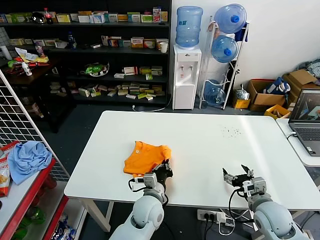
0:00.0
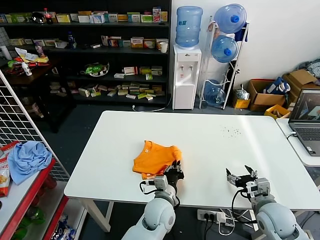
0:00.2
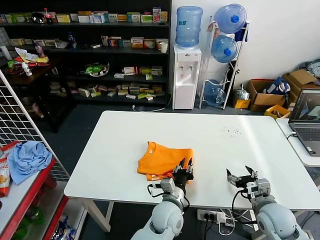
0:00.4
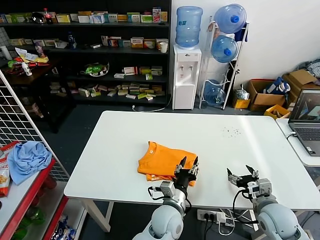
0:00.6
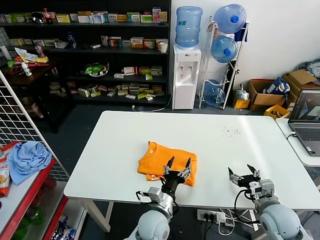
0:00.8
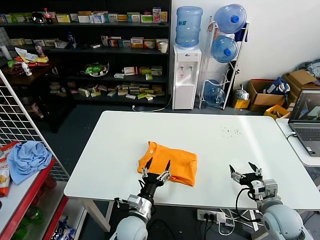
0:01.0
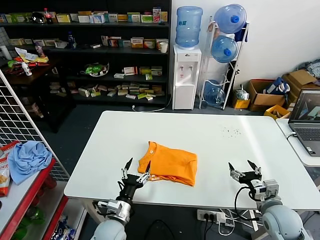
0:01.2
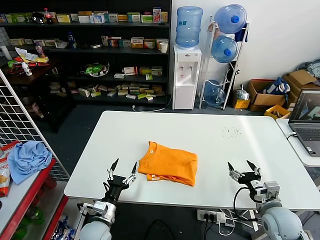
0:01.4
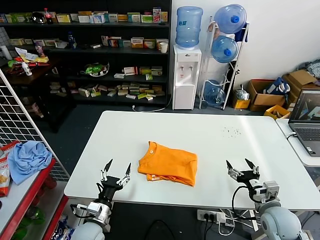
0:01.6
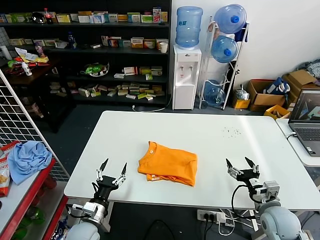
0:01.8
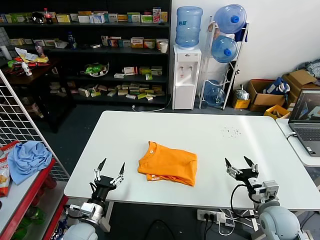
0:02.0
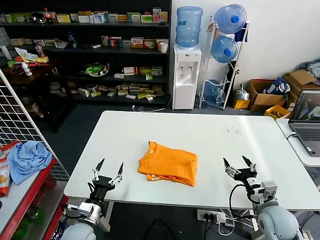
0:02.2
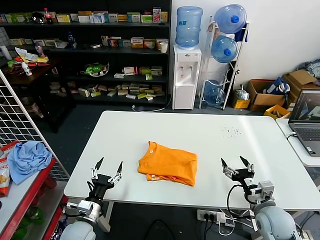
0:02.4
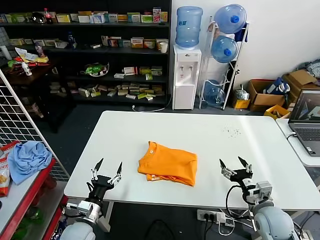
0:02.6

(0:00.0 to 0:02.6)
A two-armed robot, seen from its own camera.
Task of the whole recording: fold and organize the clothes.
0:00.0 - 0:01.2: The left gripper heads to the left, downward and backward, covering roughly 10 cm, and opens its fingers.
0:01.2 - 0:02.6: The left gripper moves to the left, some 10 cm.

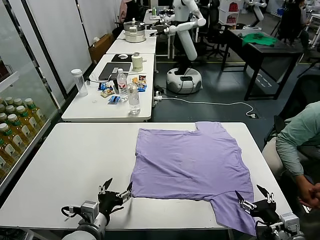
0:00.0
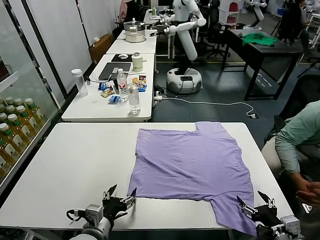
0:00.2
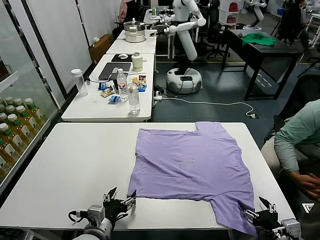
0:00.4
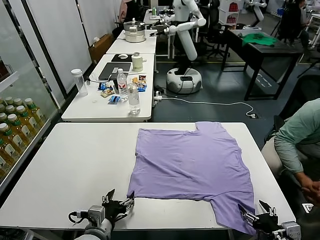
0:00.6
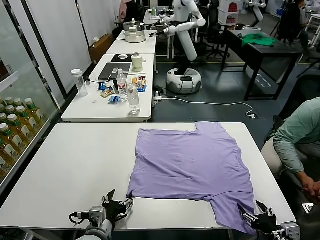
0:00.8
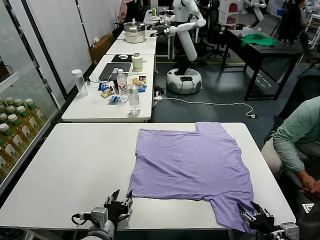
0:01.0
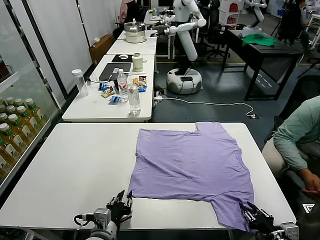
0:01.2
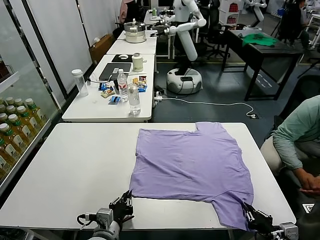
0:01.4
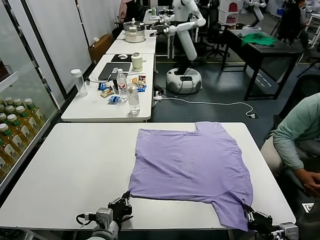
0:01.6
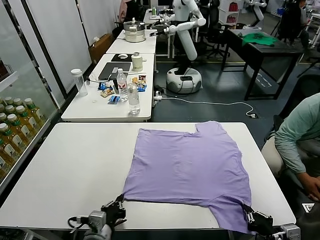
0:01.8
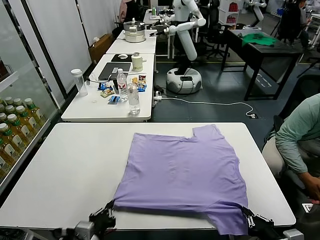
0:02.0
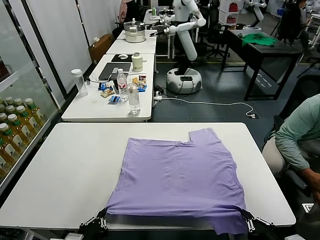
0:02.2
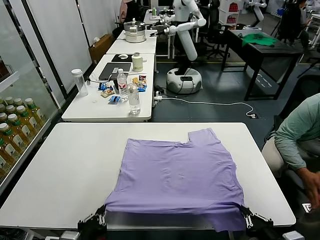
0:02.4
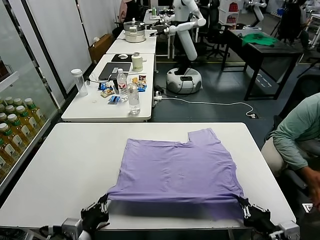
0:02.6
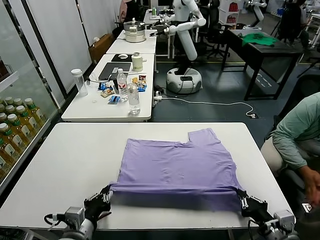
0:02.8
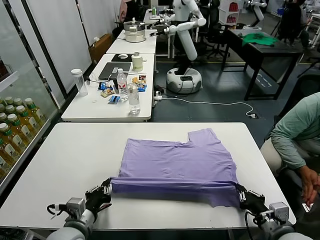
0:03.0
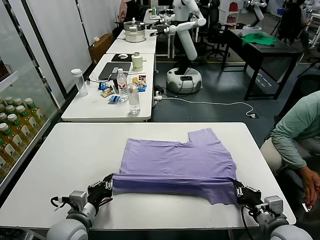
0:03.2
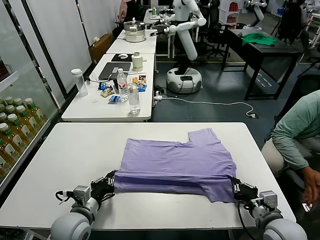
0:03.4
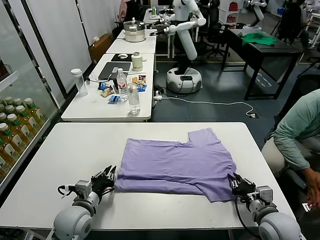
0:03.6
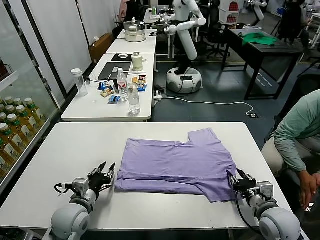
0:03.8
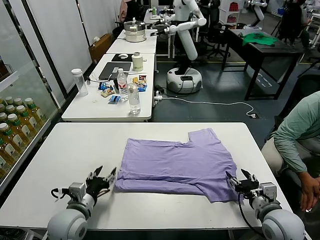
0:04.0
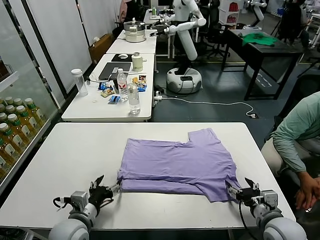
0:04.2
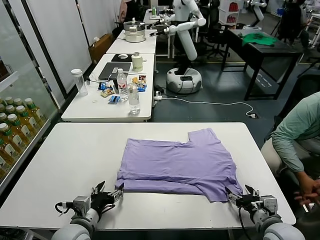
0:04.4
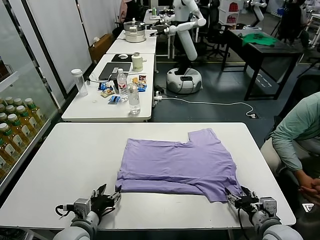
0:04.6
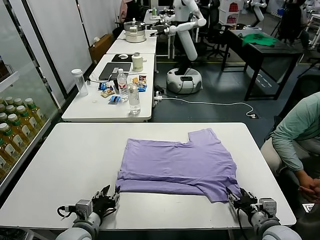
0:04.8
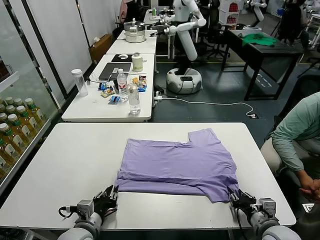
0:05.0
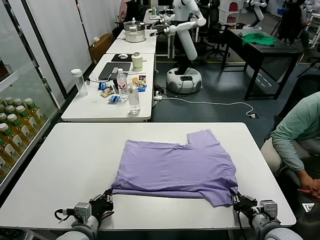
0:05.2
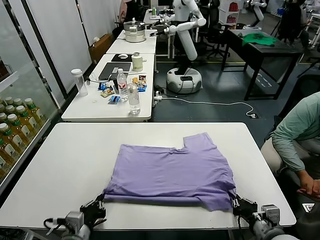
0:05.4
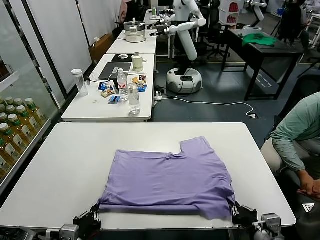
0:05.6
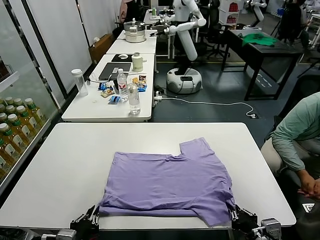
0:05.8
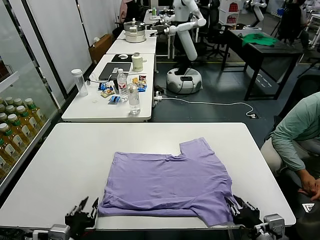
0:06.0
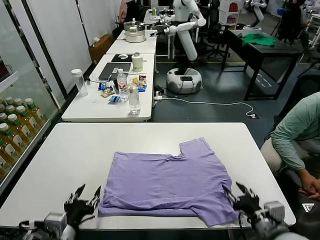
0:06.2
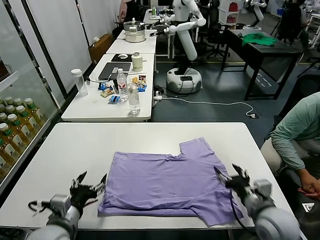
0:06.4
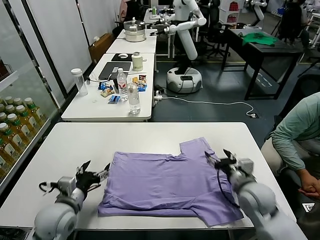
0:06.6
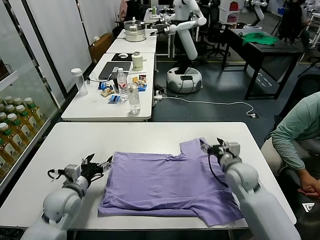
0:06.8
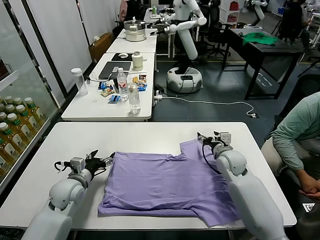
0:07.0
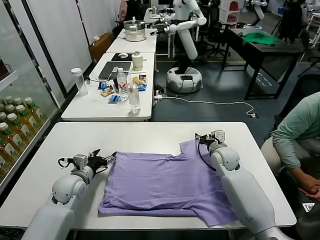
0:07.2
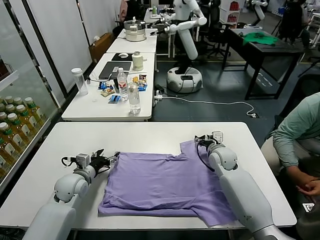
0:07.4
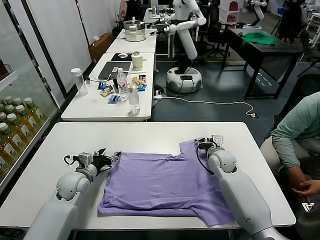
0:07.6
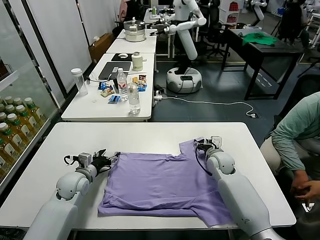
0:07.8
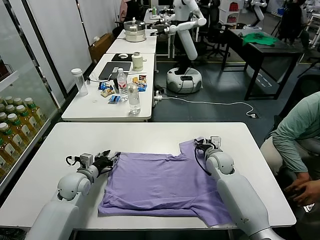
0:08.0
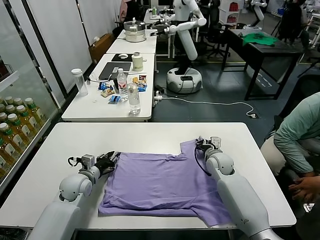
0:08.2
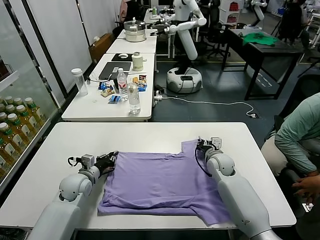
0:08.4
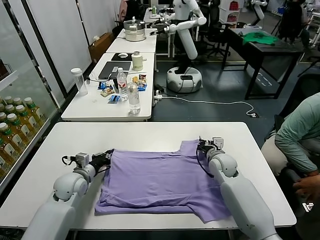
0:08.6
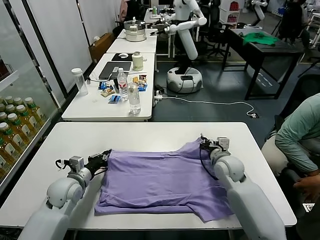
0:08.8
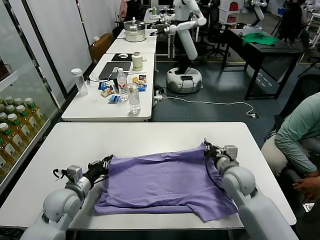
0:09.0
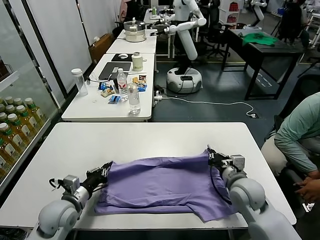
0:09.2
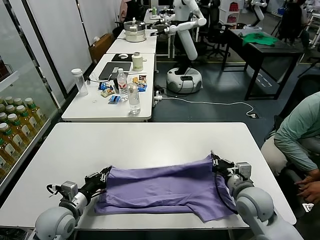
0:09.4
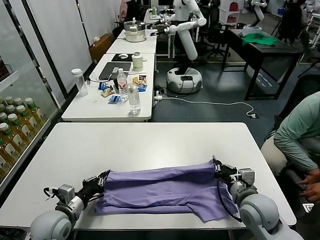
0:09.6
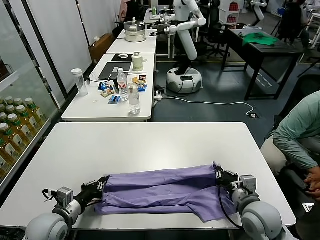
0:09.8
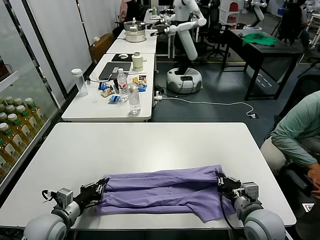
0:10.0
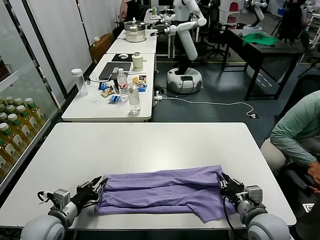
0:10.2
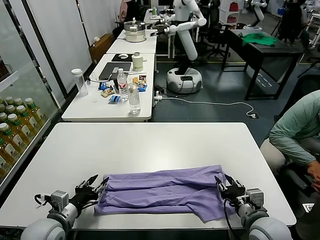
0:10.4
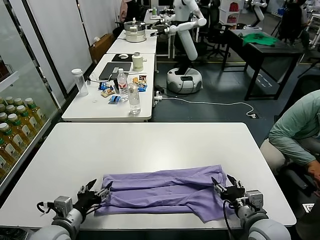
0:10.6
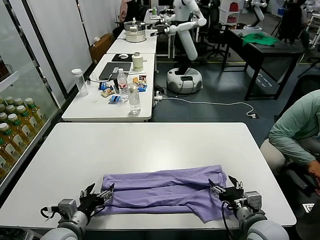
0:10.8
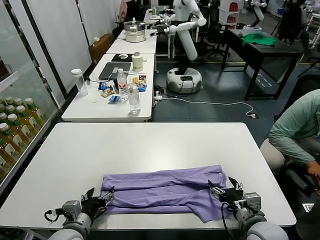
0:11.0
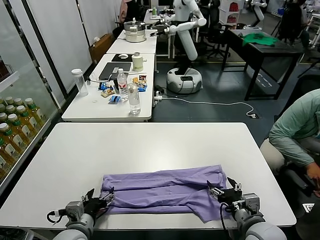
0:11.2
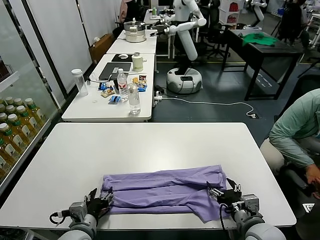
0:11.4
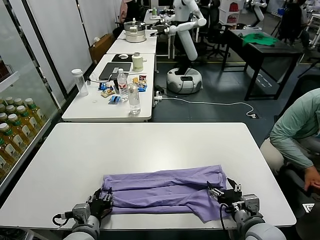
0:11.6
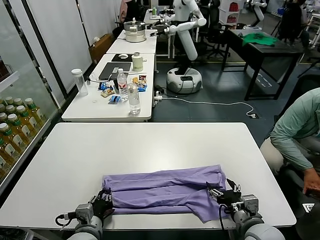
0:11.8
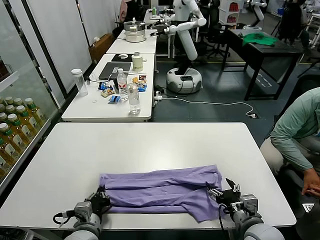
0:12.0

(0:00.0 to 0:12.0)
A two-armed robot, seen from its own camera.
Task of the whole recording: fold and organize the clothes.
Step, 0:00.0 - 0:01.8: use both grippers simultaneously to clamp the lower edge of the clothing fabric.
Step, 0:02.0 - 0:04.0: use both grippers to drag the lower edge of the fabric forward and fold it over the upper edge.
Step, 0:04.2 - 0:06.0: Drag the clothes downward with both gripper.
Step, 0:06.2 - 0:08.4: use both grippers simultaneously to clamp the upper edge of the clothing fabric.
Step, 0:08.6 - 0:10.4: use both grippers to drag the upper edge of the fabric backward and fold it over the lower edge.
Step, 0:10.6 - 0:11.8: use the left gripper to clamp the left edge of the fabric.
0:01.6 - 0:03.0: The left gripper moves to the left, some 5 cm, and travels backward and back again, roughly 10 cm each way. Meanwhile the right gripper moves forward, roughly 5 cm.
0:03.0 - 0:04.4: The right gripper opens its fingers. Meanwhile the left gripper opens up.
0:04.4 - 0:06.0: The right gripper moves upward and backward, approximately 10 cm, and closes, then reopens. The left gripper moves backward and upward, roughly 10 cm, and closes its fingers.
0:06.0 - 0:07.6: The grippers both shift forward by about 30 cm. The left gripper opens its fingers. The right gripper opens its fingers.
0:07.6 - 0:09.0: The left gripper heads backward, covering about 10 cm, and closes its fingers. Meanwhile the right gripper shifts some 15 cm backward, and closes.
0:09.0 - 0:10.4: The left gripper goes roughly 10 cm backward, and opens, while the right gripper shifts about 15 cm backward, and opens its fingers.
0:10.4 - 0:12.0: The right gripper opens, while the left gripper shifts approximately 10 cm to the right, and closes.

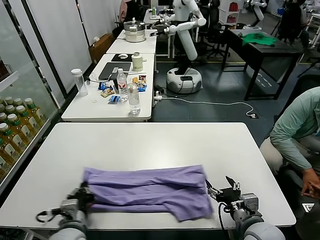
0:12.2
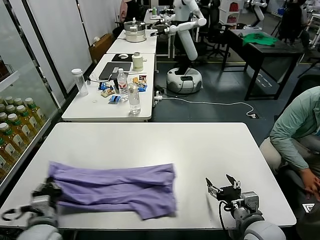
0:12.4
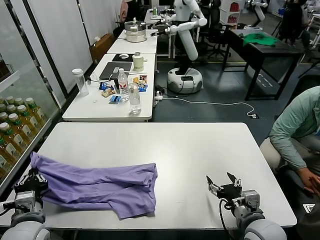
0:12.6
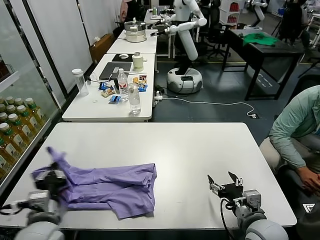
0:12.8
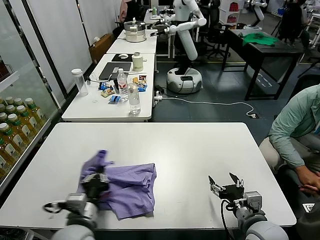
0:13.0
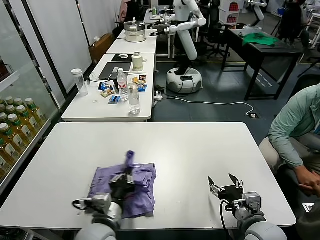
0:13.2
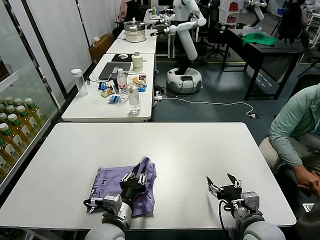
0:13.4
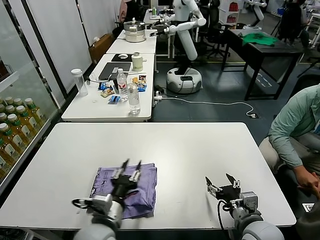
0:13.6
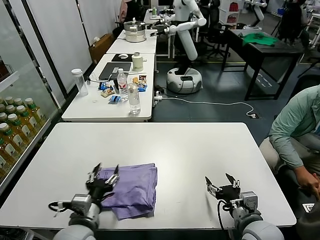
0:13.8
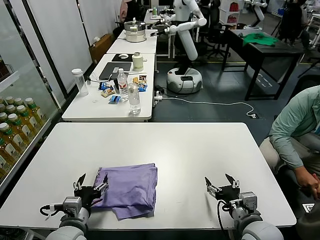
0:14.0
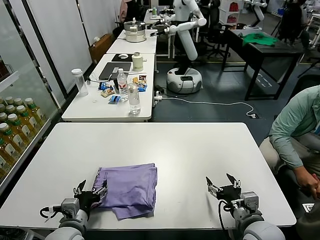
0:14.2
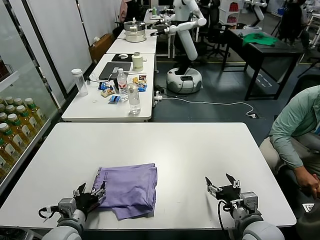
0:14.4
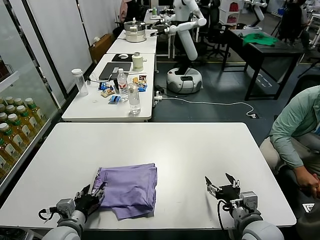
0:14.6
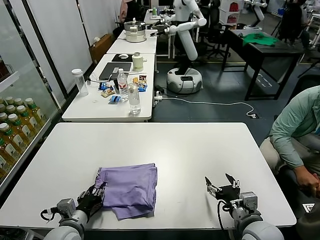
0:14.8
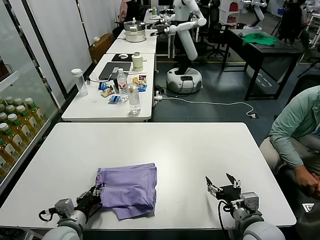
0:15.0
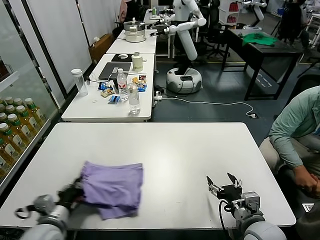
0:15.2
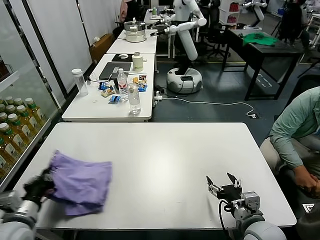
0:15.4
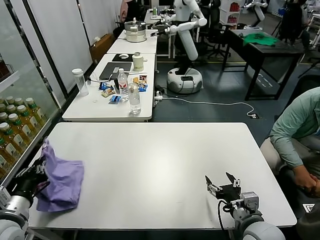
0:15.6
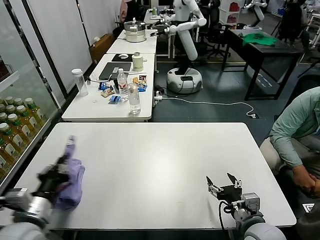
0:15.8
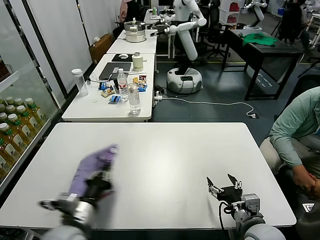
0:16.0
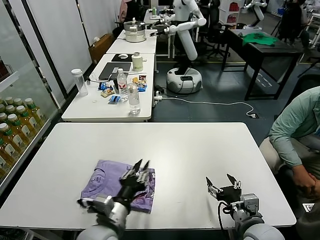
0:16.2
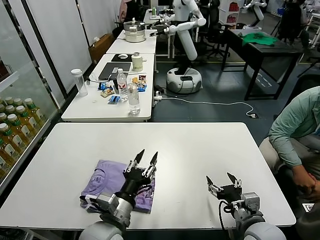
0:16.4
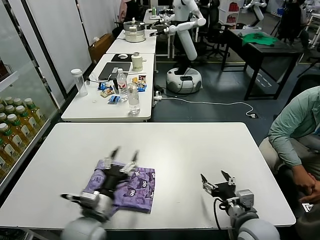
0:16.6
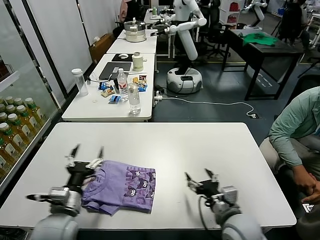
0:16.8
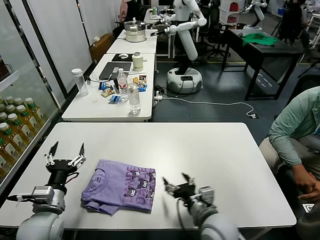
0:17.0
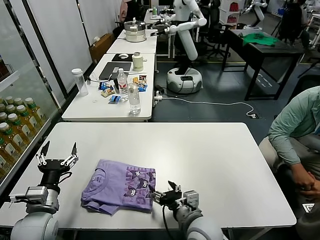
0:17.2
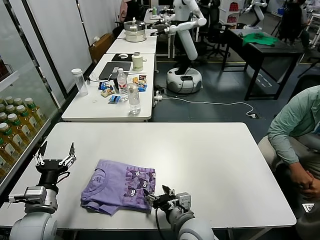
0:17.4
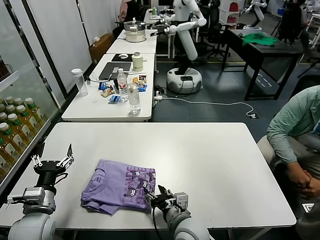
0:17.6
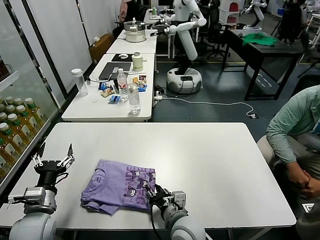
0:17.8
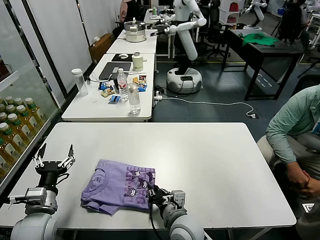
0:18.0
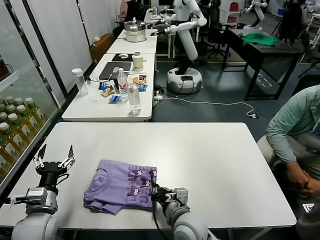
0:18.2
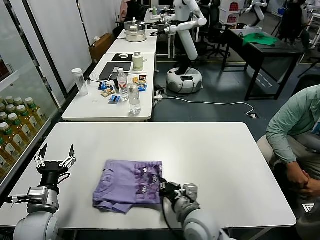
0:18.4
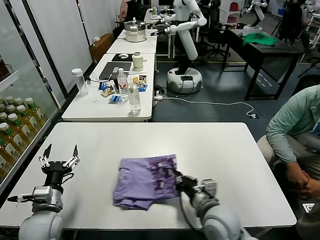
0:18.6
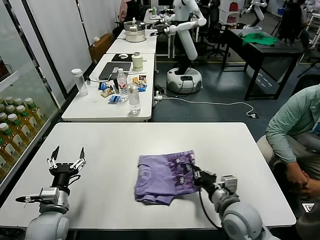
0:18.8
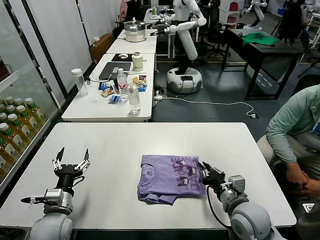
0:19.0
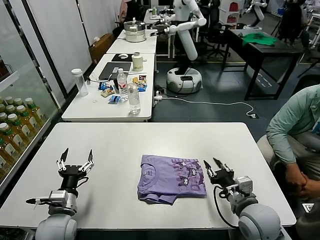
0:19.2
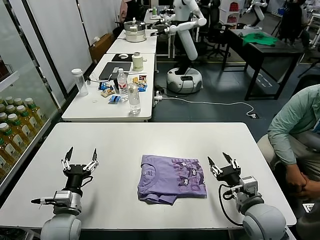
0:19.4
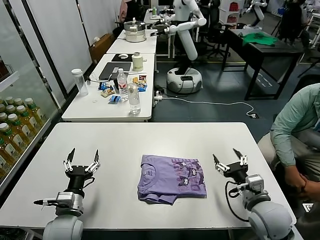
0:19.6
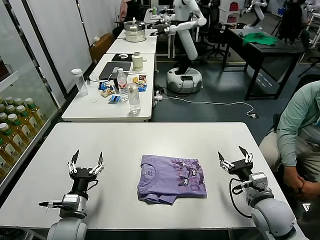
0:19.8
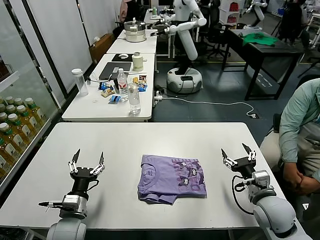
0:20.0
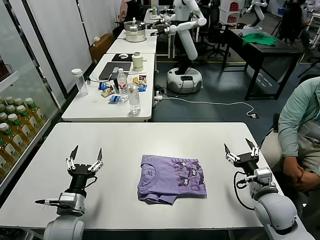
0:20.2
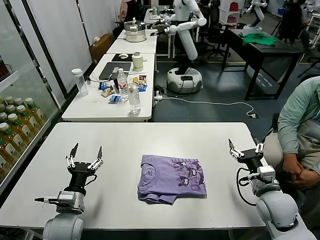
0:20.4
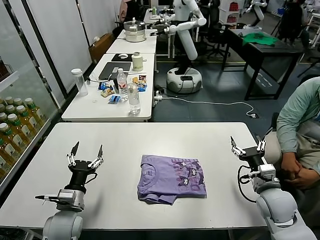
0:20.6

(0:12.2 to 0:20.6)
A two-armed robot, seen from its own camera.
Task of the whole recording: fold and organize the clothes.
Step, 0:12.2 - 0:13.8: use the left gripper to drag the left edge of the fabric to the left and folds it over the right edge.
Step, 0:14.0 - 0:16.6: Flip the folded clothes over with left gripper.
Step, 0:16.8 - 0:19.4: Drag the clothes to the center of the table.
0:12.2 - 0:13.6: The left gripper is displaced to the right by approximately 10 cm, and opens up.
0:13.6 - 0:15.0: The left gripper heads to the left and downward, covering roughly 15 cm, and opens, then closes again.
0:15.0 - 0:16.4: The left gripper heads to the right and upward, covering roughly 15 cm.
0:16.4 - 0:17.8: The grippers both shift to the left by roughly 20 cm. The left gripper opens its fingers. The right gripper closes.
0:17.8 - 0:19.2: The right gripper moves to the right, roughly 20 cm, and closes and opens again. Meanwhile the left gripper moves roughly 5 cm.
0:19.2 - 0:20.6: The right gripper heads to the right, covering about 10 cm, and opens up.
